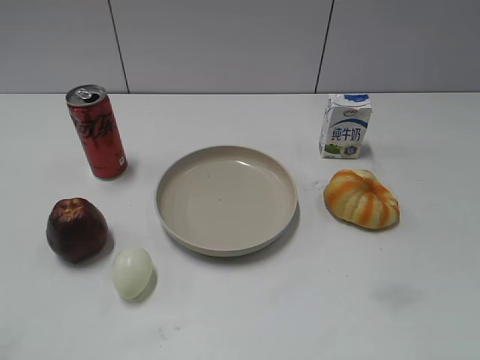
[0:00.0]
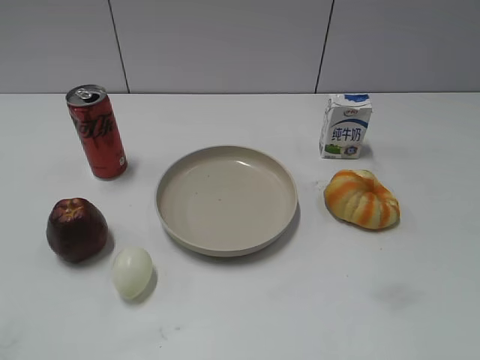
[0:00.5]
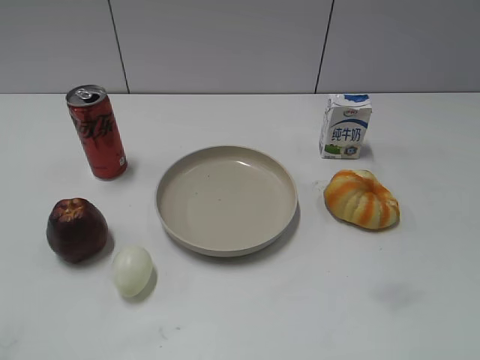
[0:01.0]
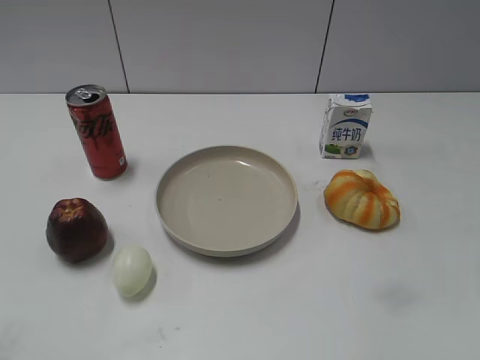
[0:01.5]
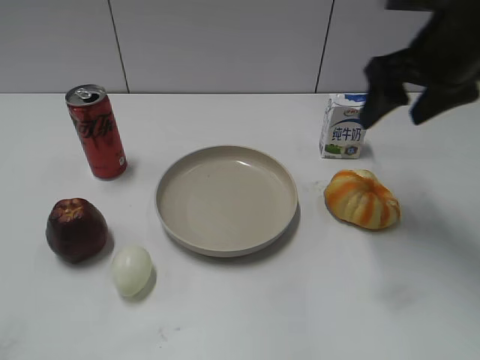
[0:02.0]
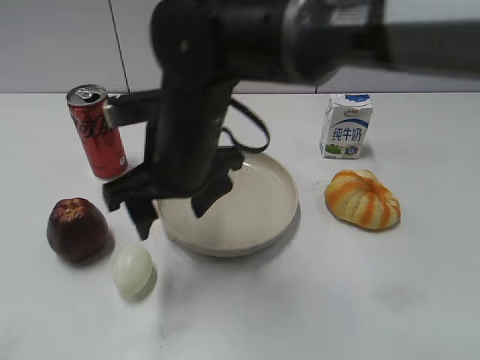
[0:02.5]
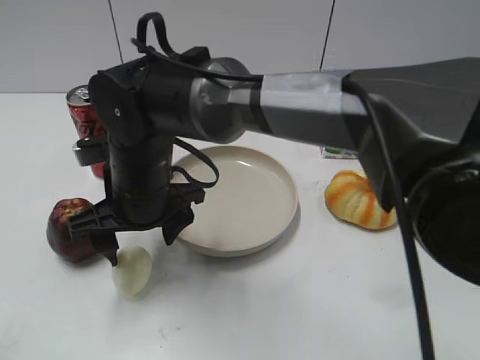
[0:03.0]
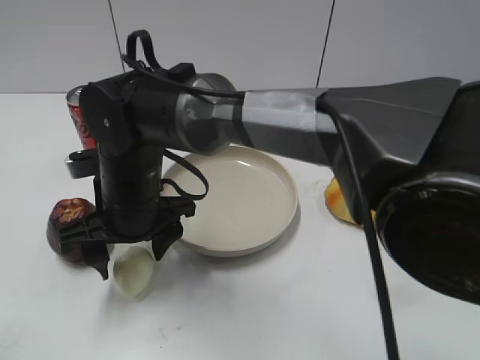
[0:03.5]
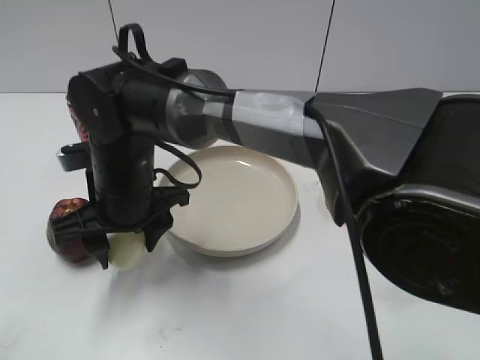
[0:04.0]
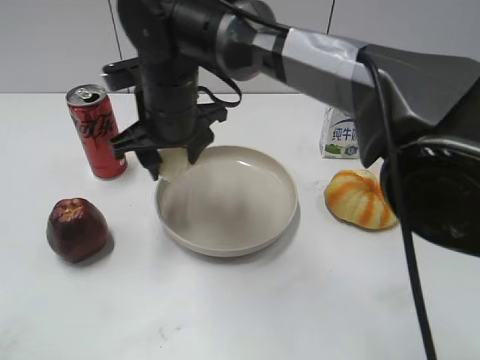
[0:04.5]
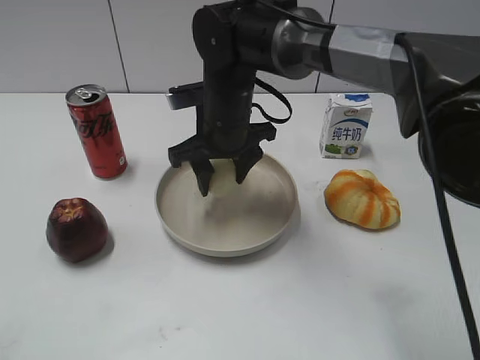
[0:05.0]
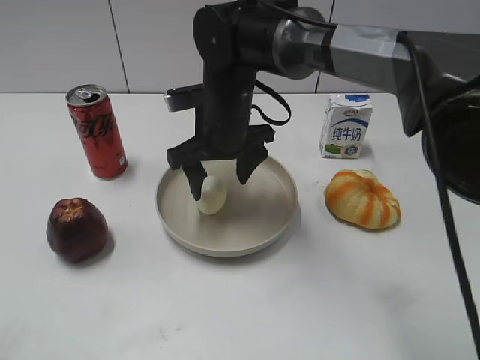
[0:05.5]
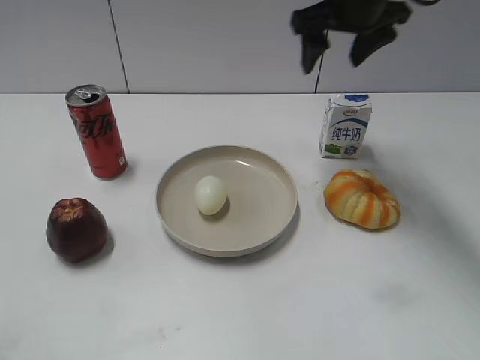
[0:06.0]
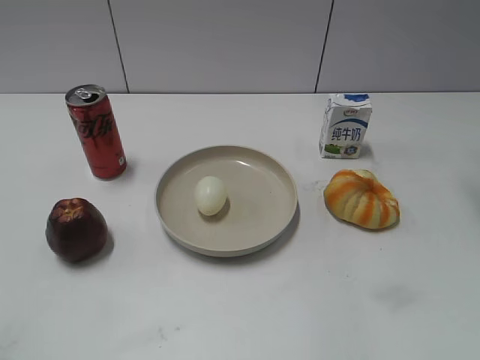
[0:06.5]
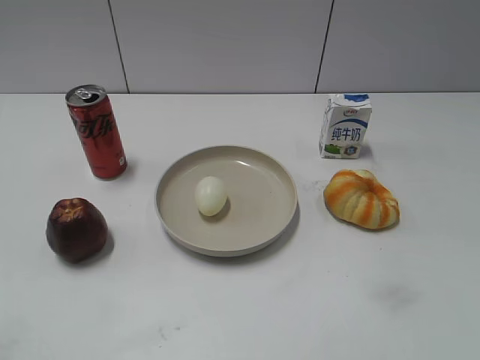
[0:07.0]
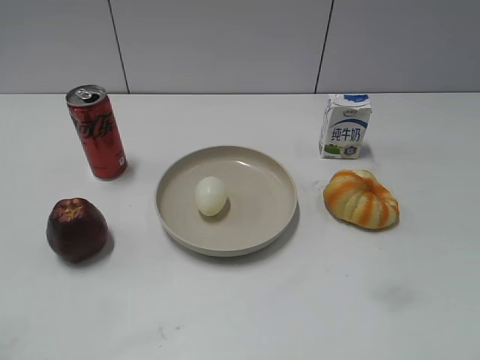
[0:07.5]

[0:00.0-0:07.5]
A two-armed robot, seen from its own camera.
Step, 0:01.0 to 0:03.5: Grasp the egg with right gripper.
Step, 0:04.0 to 0:05.5: Place the egg on the plate with right gripper.
0:02.0 to 0:04.0: The right gripper travels to the left and downward by some 35 cm, and closes up.
0:04.0 to 0:05.5: The right gripper goes some 15 cm forward and to the right, and opens up.
0:05.5 to 0:07.5: The right gripper travels to the right and backward by about 40 cm.

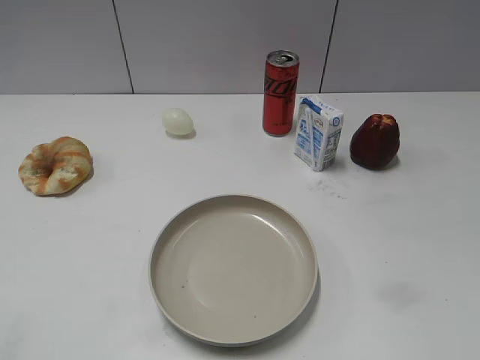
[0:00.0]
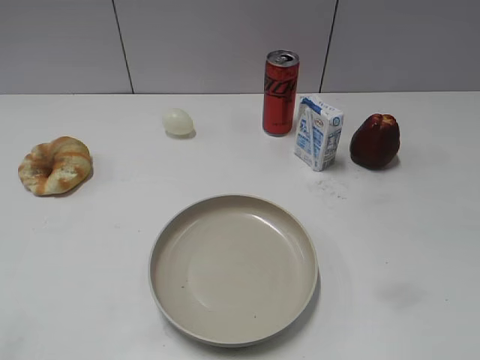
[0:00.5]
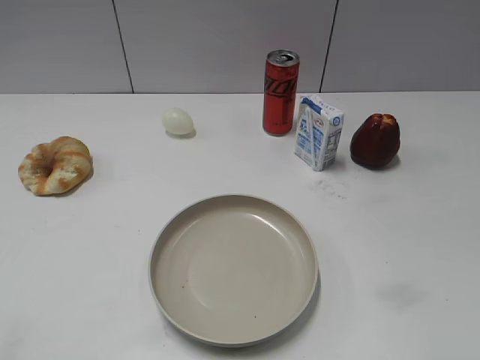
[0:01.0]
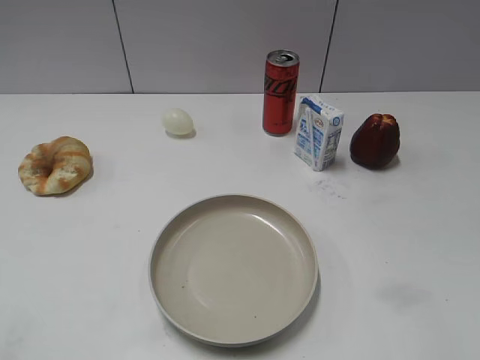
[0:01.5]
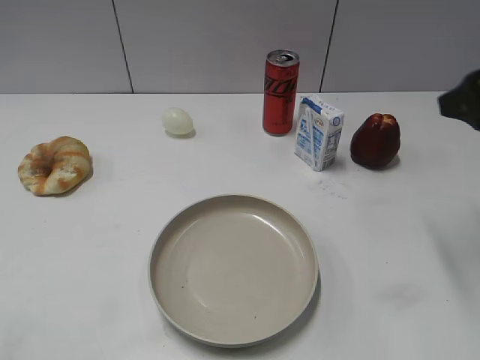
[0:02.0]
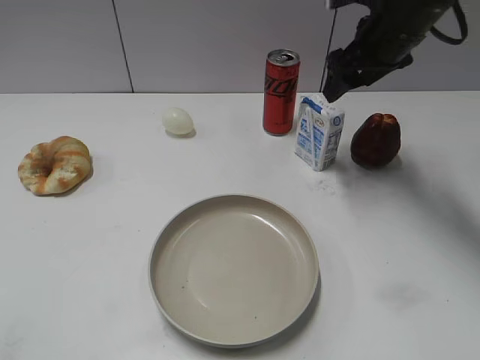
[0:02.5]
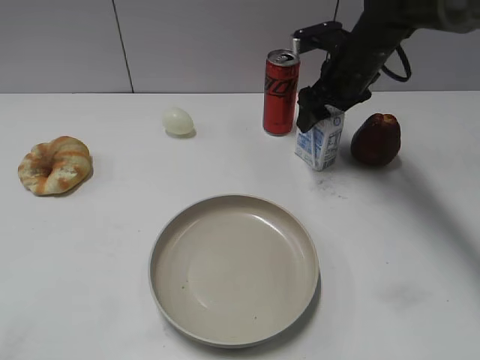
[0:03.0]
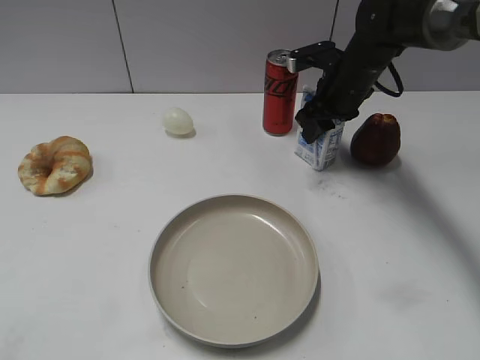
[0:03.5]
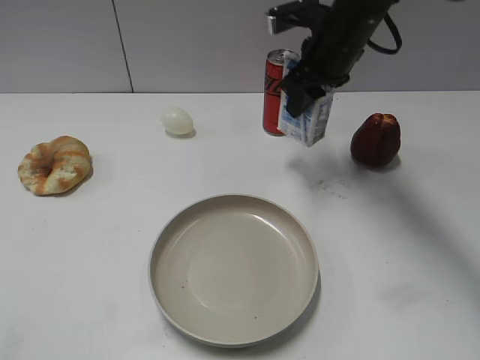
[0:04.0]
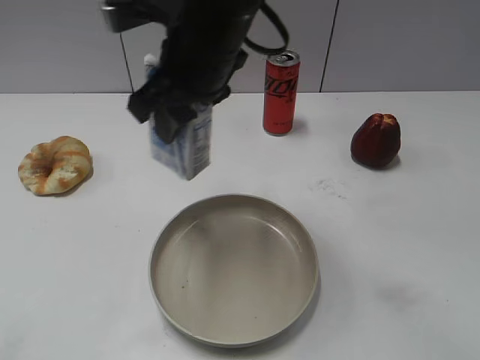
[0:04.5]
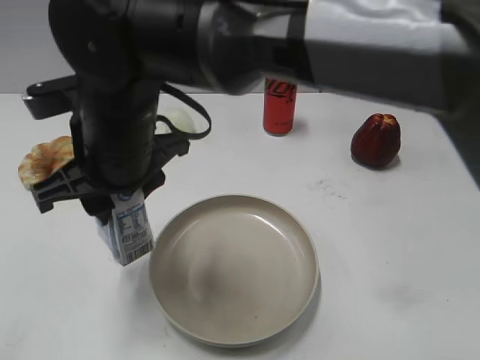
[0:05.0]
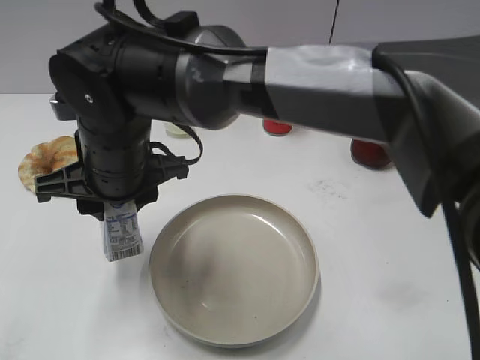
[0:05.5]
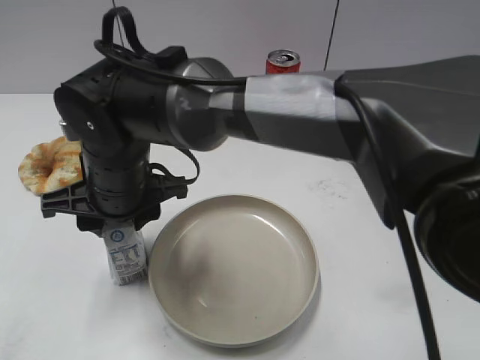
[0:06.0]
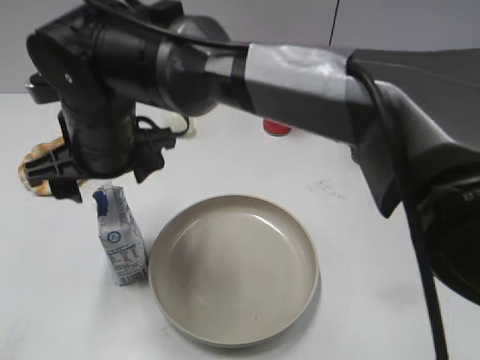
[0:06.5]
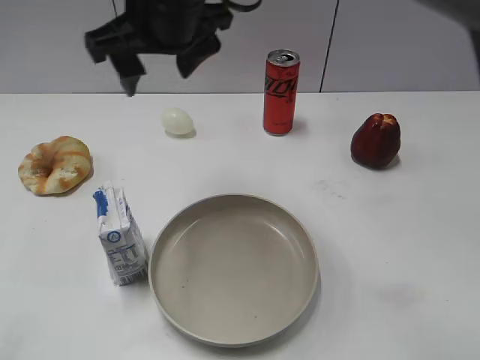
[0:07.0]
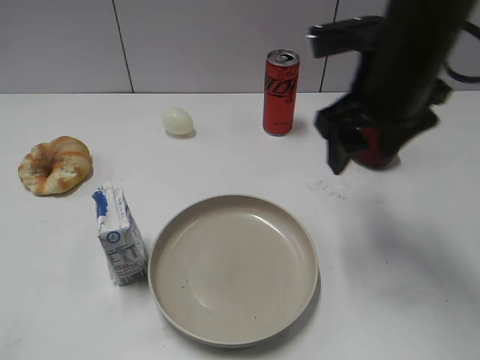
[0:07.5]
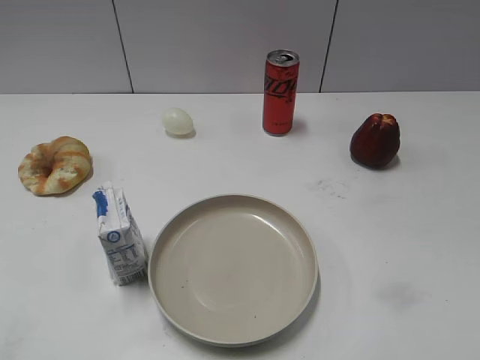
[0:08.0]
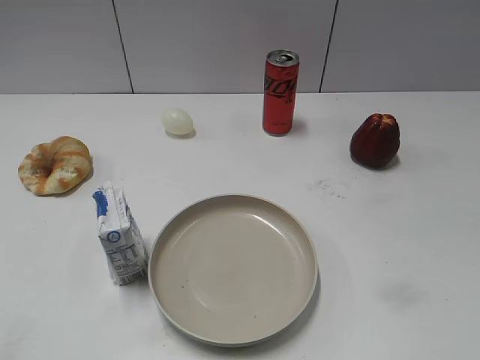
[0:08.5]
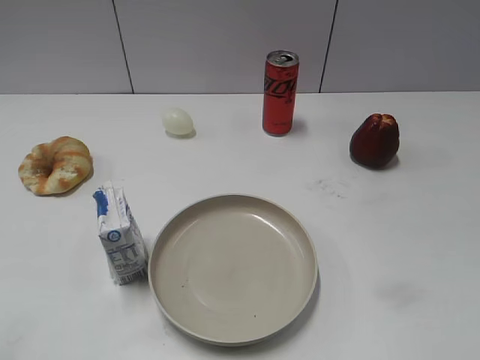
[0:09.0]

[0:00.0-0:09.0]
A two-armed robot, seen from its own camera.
Step, 0:01.0 to 0:03.5: Grasp the milk with right gripper.
Step, 0:04.0 to 0:06.5: Place the milk on the table with right gripper.
0:02.0 to 0:04.5: The right gripper moves to the left, about 30 cm, and closes.
0:04.5 to 0:07.0: The right gripper moves to the left, roughly 5 cm, reaches approximately 10 cm downward, then returns, and opens up.
0:07.0 to 0:09.0: The right gripper goes approximately 50 cm to the right and backward.
